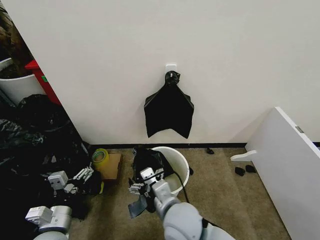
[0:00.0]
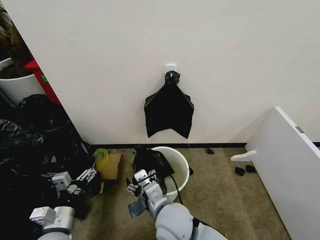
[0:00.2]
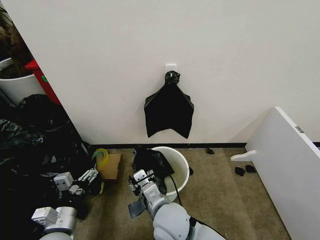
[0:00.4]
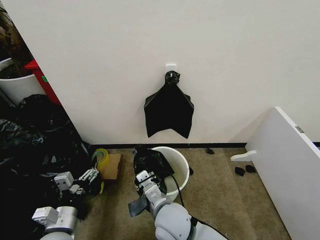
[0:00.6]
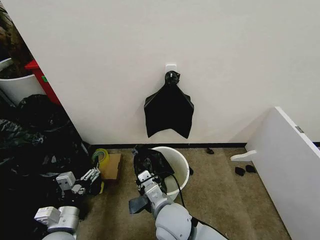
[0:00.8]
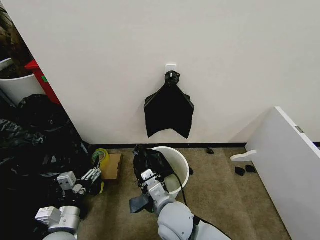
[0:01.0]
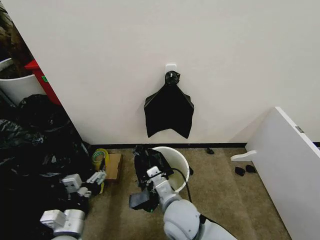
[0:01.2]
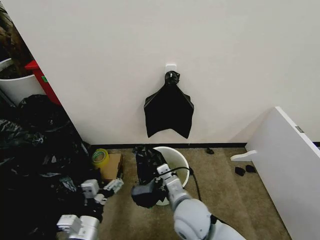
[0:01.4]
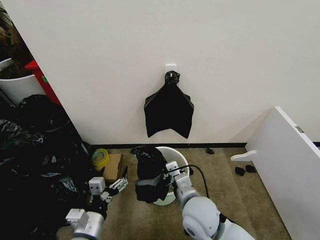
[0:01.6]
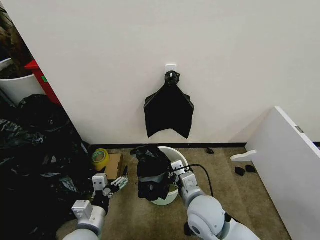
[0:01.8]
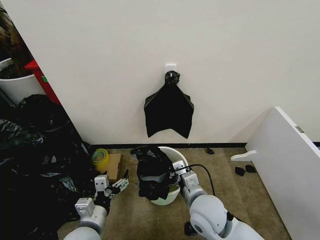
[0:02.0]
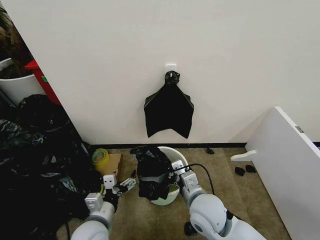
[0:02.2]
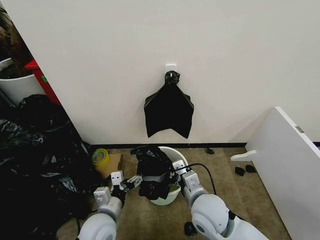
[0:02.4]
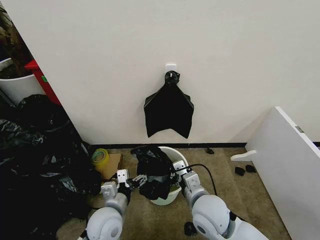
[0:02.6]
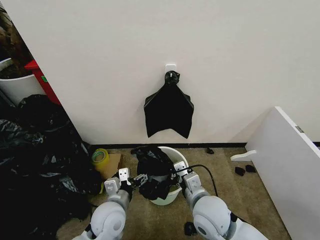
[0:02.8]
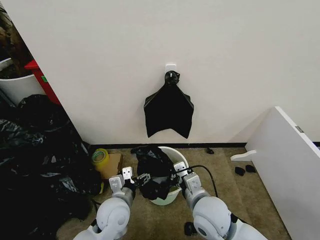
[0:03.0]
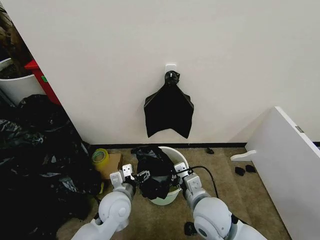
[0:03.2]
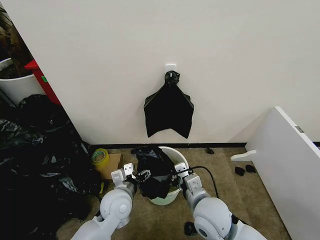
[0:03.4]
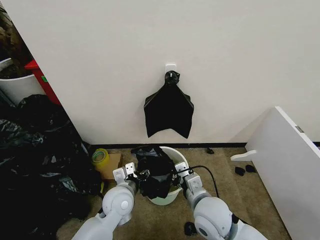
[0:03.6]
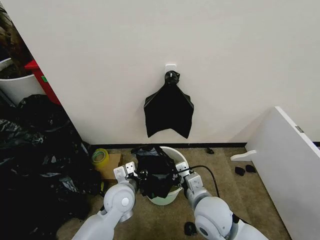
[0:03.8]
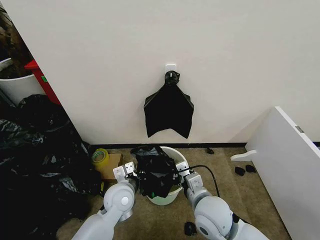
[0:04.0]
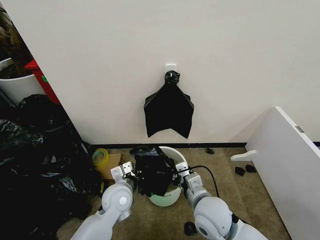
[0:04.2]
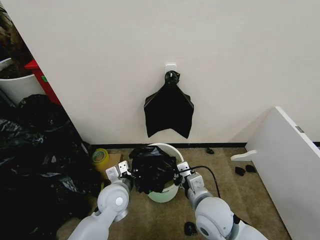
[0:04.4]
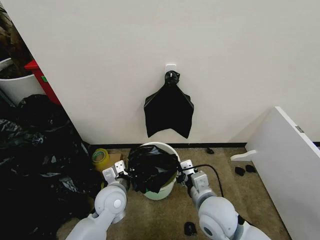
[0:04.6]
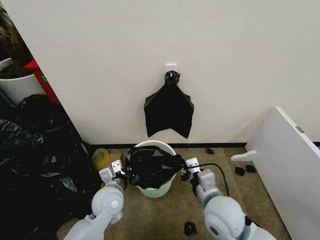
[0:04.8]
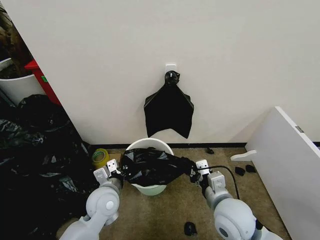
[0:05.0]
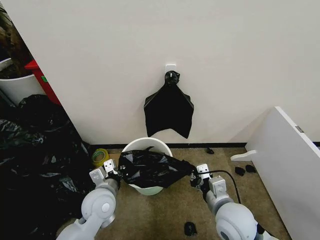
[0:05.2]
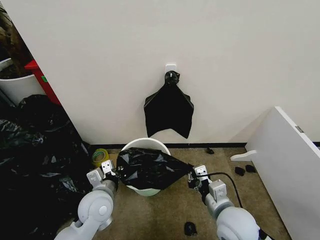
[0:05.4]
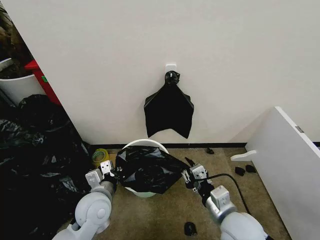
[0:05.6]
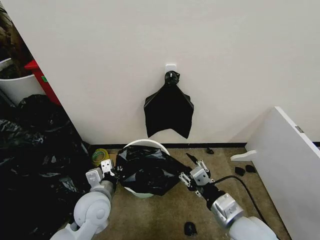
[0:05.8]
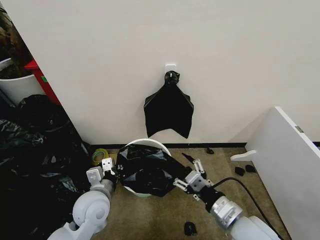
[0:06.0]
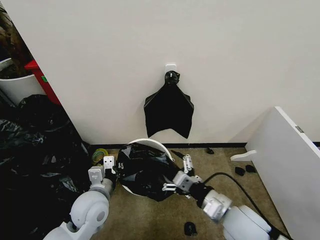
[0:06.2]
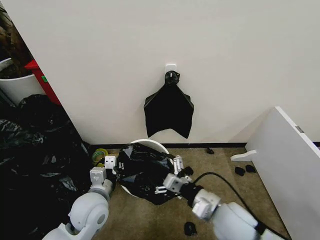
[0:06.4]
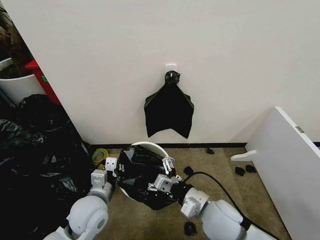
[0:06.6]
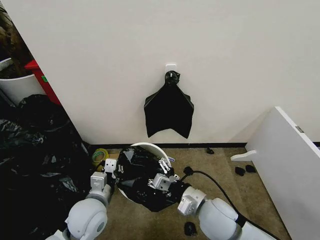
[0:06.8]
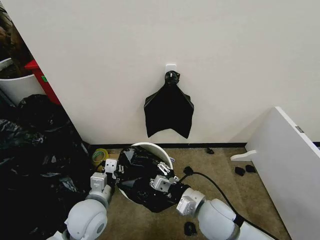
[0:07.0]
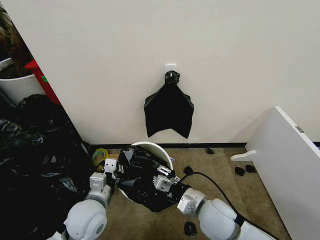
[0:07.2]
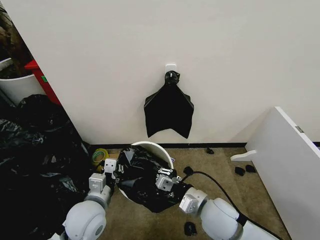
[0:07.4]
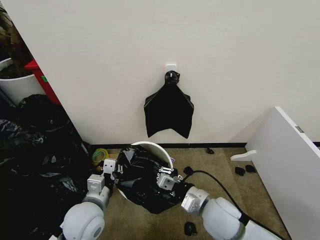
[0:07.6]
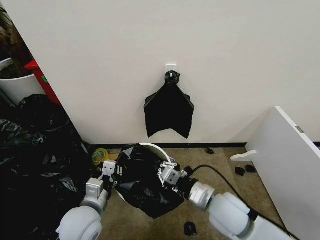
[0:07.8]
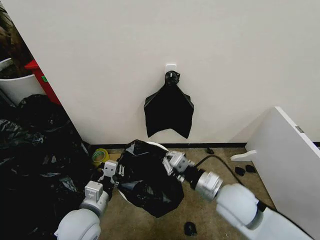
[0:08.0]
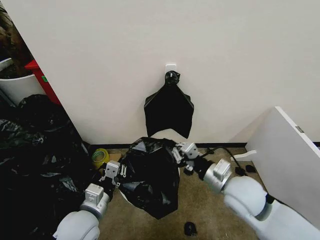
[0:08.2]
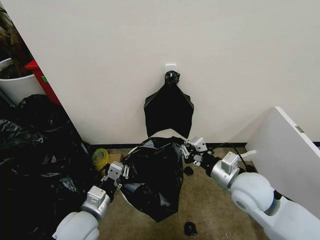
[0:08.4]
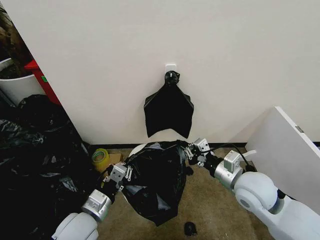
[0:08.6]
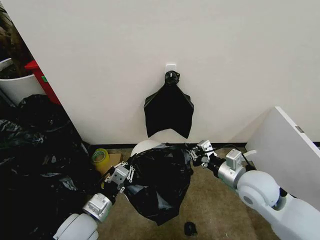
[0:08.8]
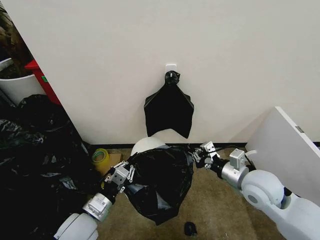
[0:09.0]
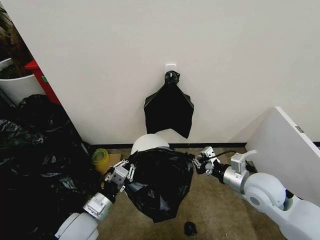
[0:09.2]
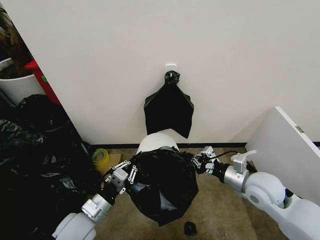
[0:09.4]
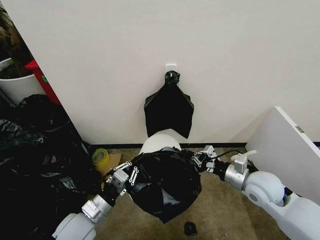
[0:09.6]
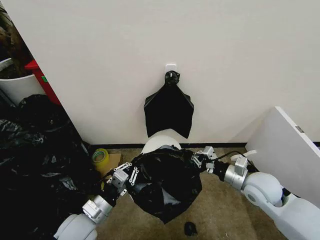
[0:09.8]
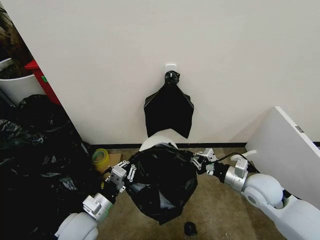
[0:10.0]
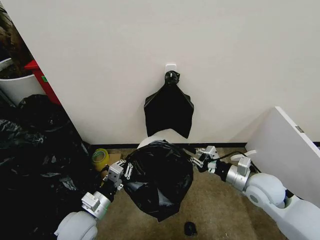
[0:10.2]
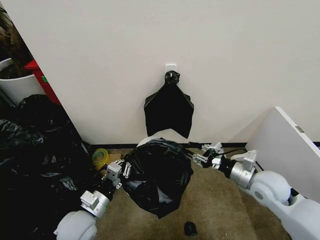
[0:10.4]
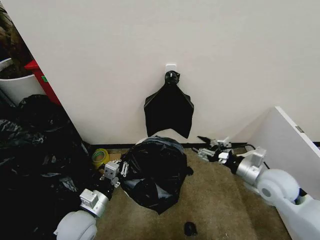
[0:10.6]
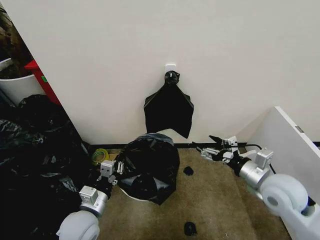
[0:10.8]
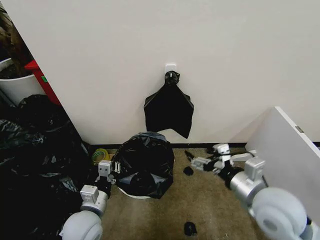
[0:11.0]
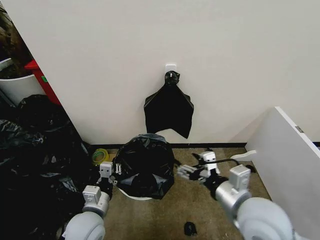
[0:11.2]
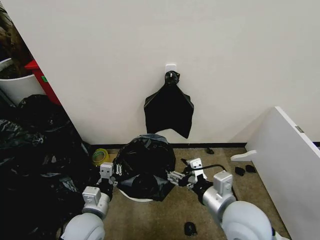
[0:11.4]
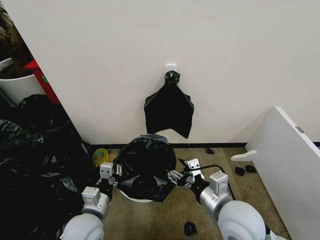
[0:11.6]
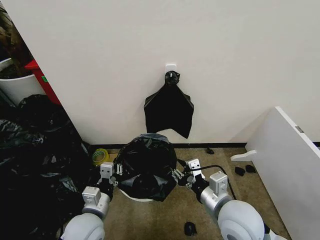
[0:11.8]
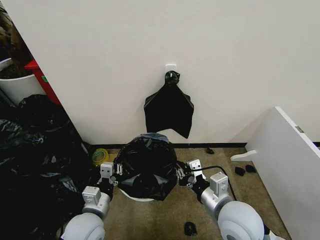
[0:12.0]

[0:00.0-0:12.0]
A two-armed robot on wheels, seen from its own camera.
Task of the whole recording: Place the garbage bag over the trash bin.
0:00.0 to 0:01.6: Both grippers move to the right, roughly 5 cm. The right gripper closes its fingers.
0:01.6 to 0:03.0: The left gripper goes about 10 cm forward and to the right.
0:03.0 to 0:04.4: The left gripper closes.
0:04.4 to 0:06.0: The left gripper ends up roughly 5 cm from where it was. Meanwhile the right gripper moves to the right and backward, roughly 10 cm, and opens its fingers.
0:06.0 to 0:07.6: The right gripper moves forward and to the left, roughly 10 cm, and closes up.
0:07.6 to 0:09.0: The right gripper moves to the right, upward and forward, some 15 cm.
0:09.0 to 0:10.4: The right gripper changes place by about 5 cm, and opens.
0:10.4 to 0:12.0: The right gripper goes some 15 cm to the left and backward, and opens, then closes once more.

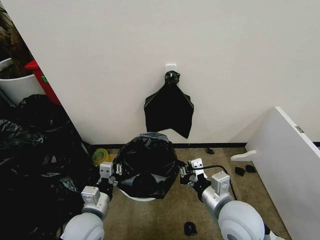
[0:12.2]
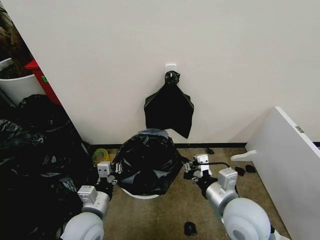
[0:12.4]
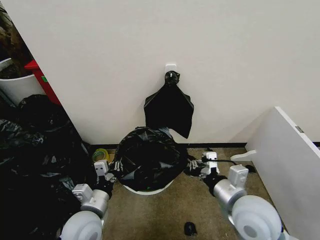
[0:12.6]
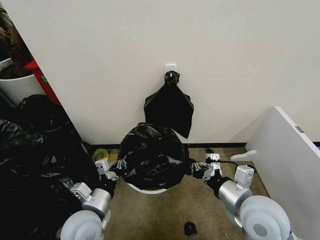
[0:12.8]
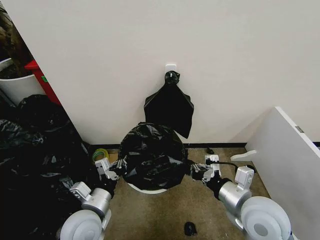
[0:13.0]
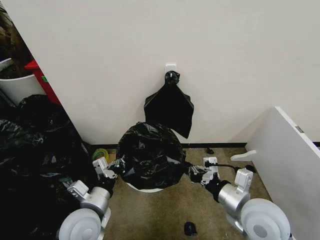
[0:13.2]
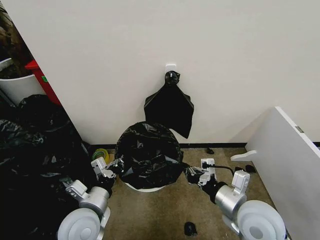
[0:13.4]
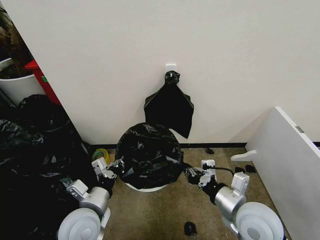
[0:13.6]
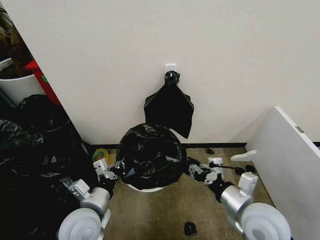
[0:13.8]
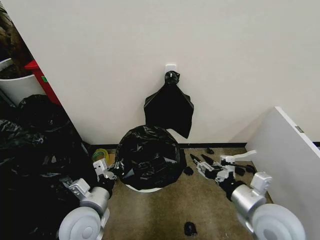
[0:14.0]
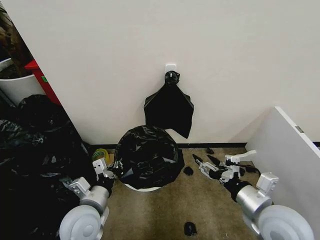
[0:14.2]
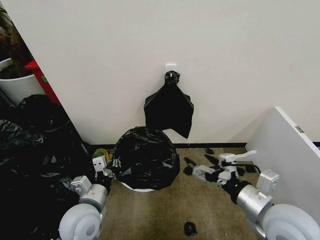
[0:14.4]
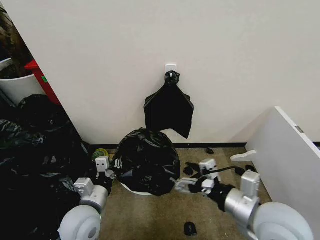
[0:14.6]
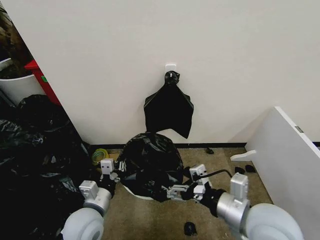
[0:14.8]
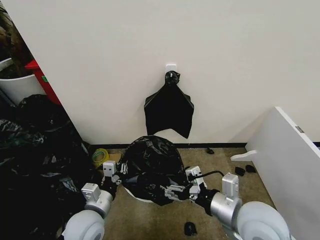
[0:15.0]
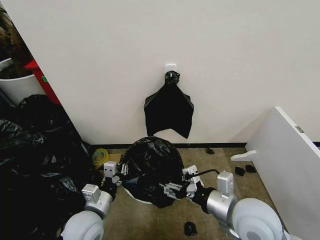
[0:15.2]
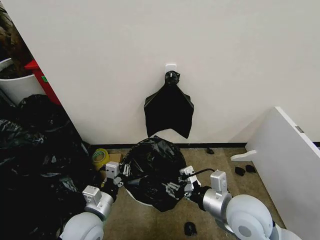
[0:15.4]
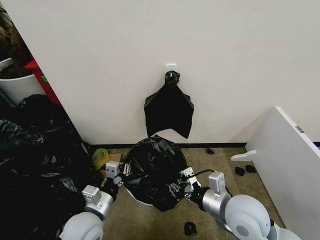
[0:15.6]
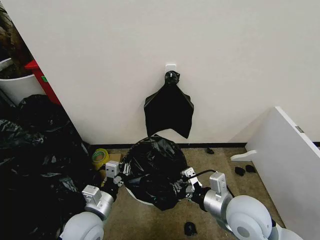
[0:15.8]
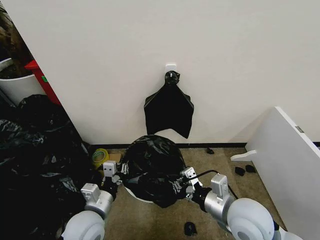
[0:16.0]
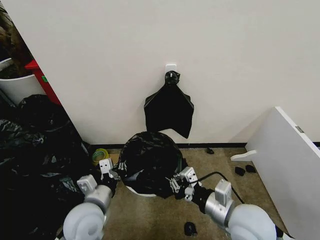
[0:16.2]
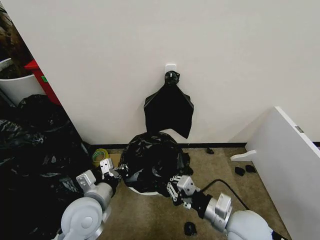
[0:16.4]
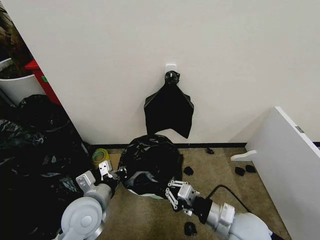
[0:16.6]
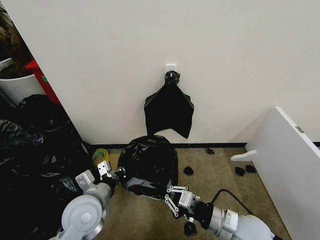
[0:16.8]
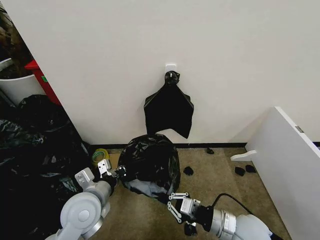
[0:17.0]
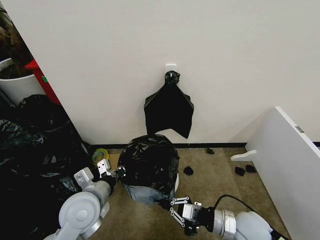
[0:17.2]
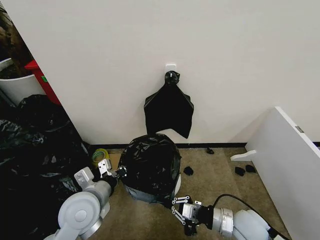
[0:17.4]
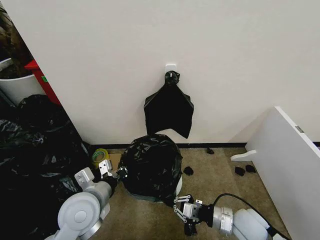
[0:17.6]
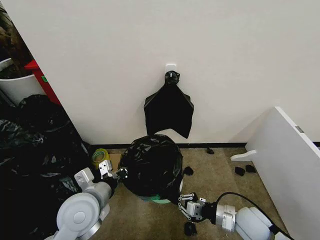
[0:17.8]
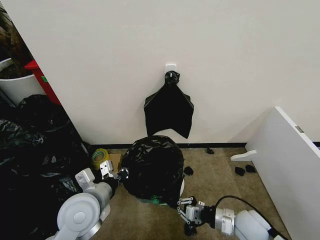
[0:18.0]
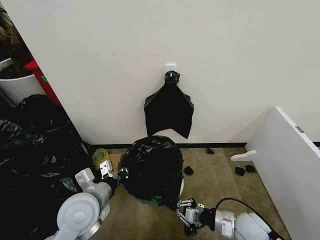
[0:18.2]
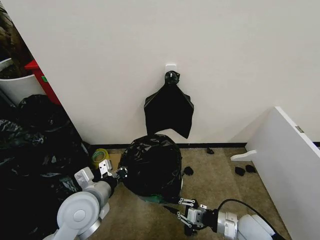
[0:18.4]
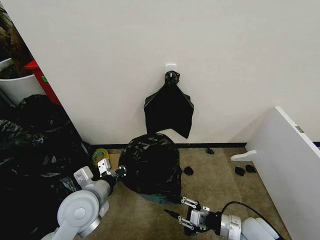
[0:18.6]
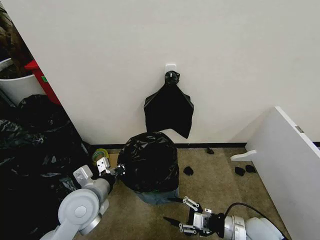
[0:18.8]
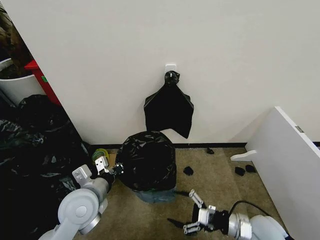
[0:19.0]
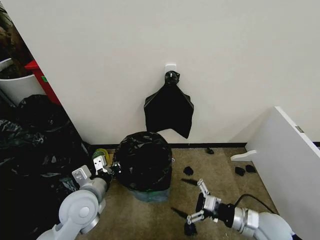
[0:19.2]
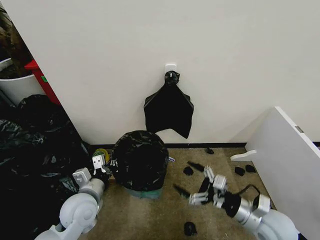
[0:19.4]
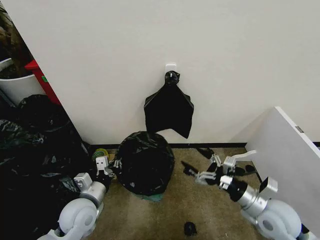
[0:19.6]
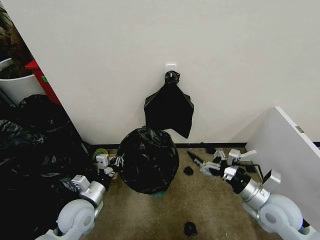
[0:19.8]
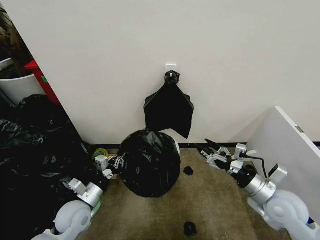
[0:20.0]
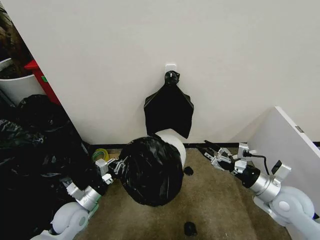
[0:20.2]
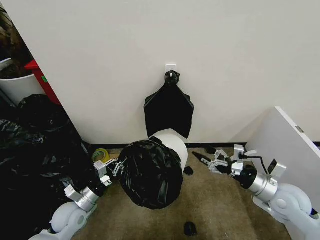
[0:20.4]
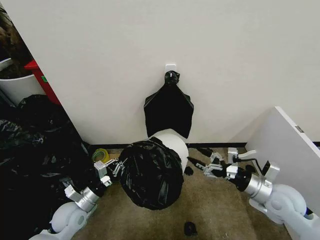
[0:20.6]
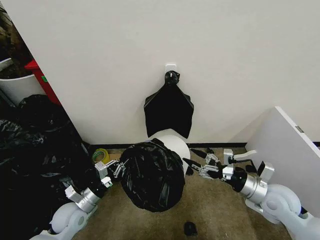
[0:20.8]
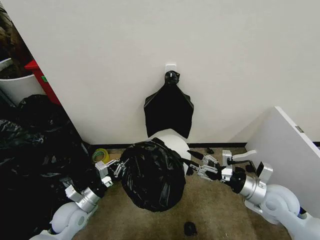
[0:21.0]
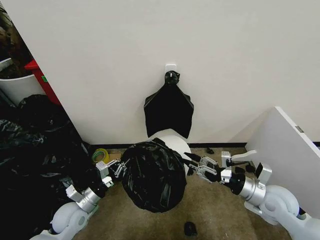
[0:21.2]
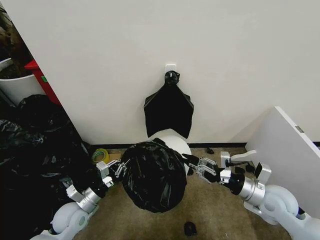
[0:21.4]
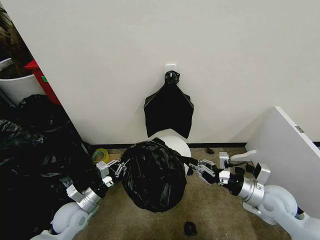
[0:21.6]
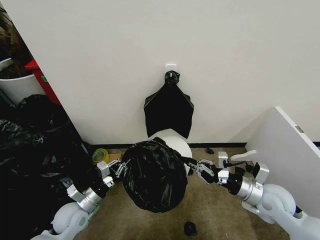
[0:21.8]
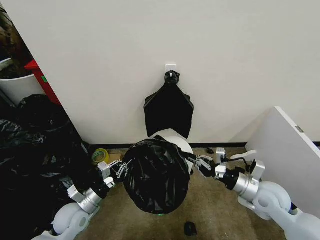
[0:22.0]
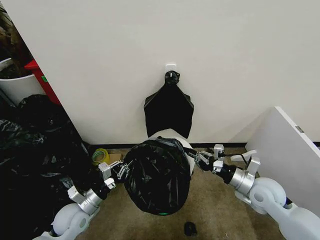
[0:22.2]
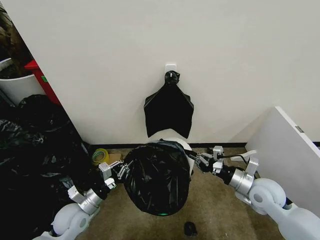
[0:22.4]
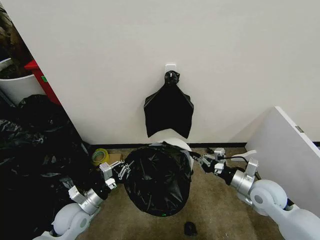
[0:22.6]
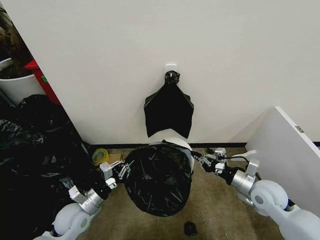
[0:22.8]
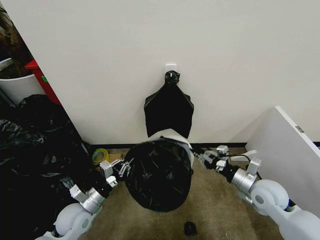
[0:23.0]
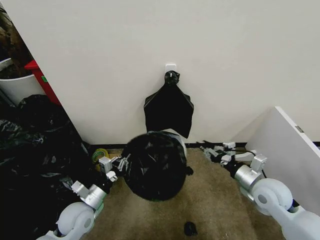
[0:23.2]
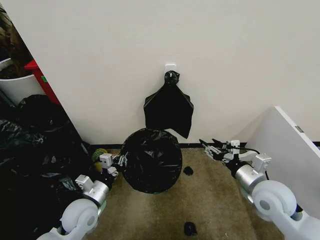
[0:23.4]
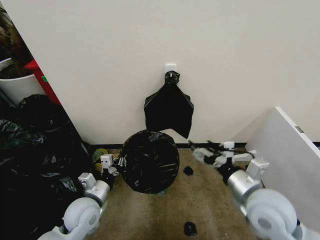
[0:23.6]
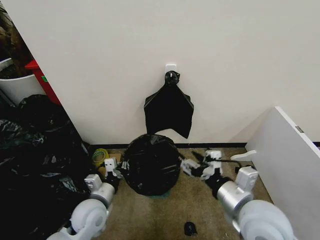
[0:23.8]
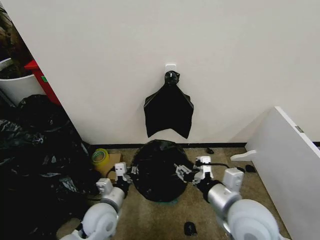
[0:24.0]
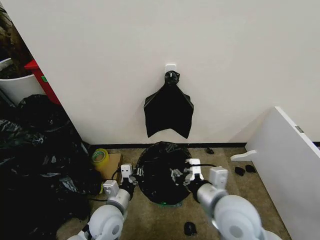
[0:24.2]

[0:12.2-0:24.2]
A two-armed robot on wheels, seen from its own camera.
Task of the whole recording: Place the garbage bag over the trash bin.
0:12.2 to 0:13.8: The right gripper moves to the right, some 5 cm.
0:13.8 to 0:15.2: The right gripper opens and closes again.
0:15.2 to 0:16.6: The left gripper ends up some 5 cm from where it was, while the right gripper moves downward, approximately 10 cm, and closes up.
0:16.6 to 0:18.2: The right gripper is displaced downward and to the right by some 10 cm.
0:18.2 to 0:19.8: The right gripper travels upward by some 10 cm, and opens. The left gripper is displaced downward by some 10 cm.
0:19.8 to 0:21.2: The right gripper closes up. The left gripper changes place by roughly 5 cm.
0:21.2 to 0:22.6: The right gripper closes.
0:22.6 to 0:24.2: The left gripper heads to the right, covering some 10 cm. The right gripper travels to the left, upward and backward by some 20 cm, and opens, then closes once more.
